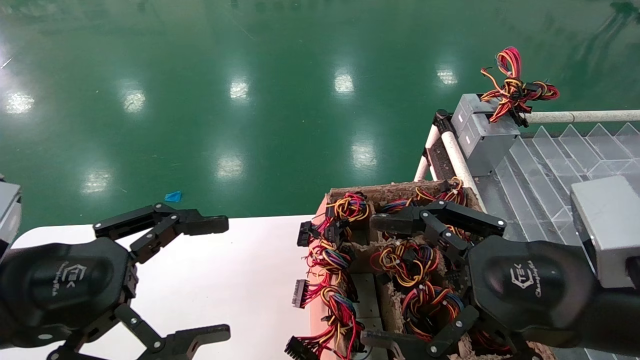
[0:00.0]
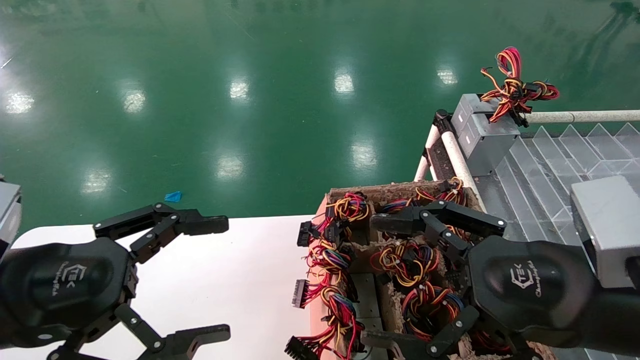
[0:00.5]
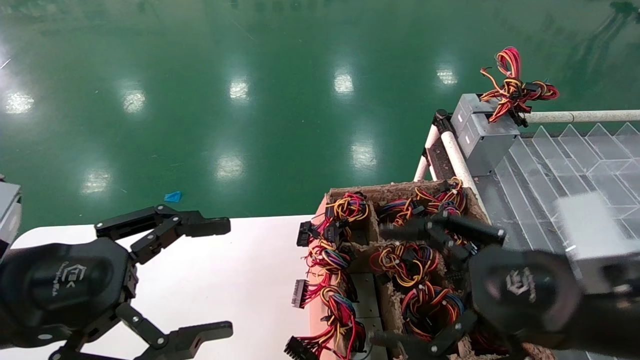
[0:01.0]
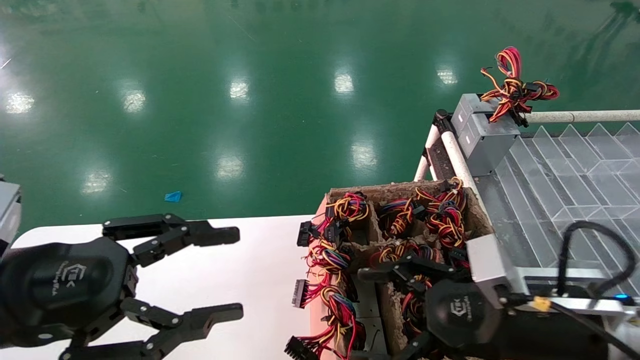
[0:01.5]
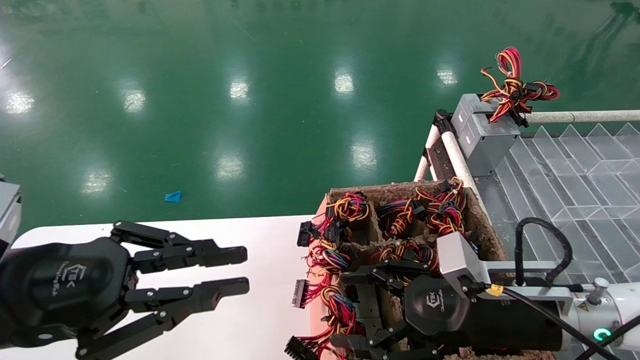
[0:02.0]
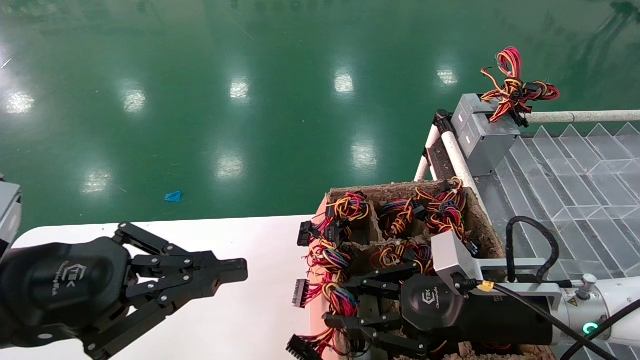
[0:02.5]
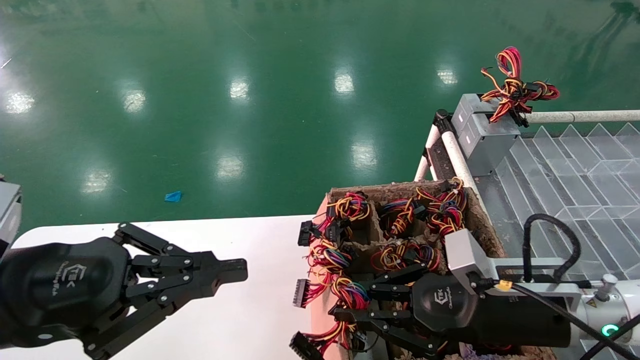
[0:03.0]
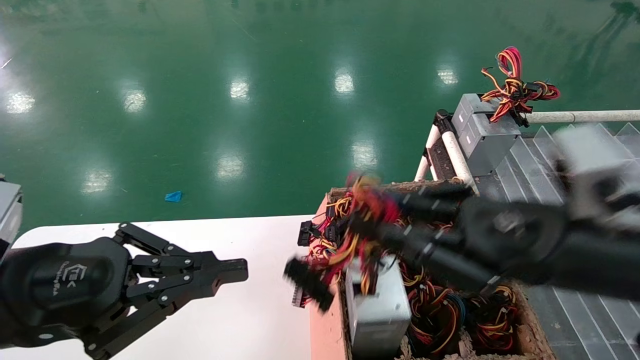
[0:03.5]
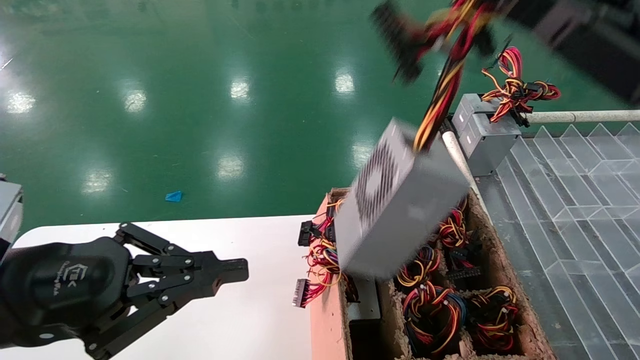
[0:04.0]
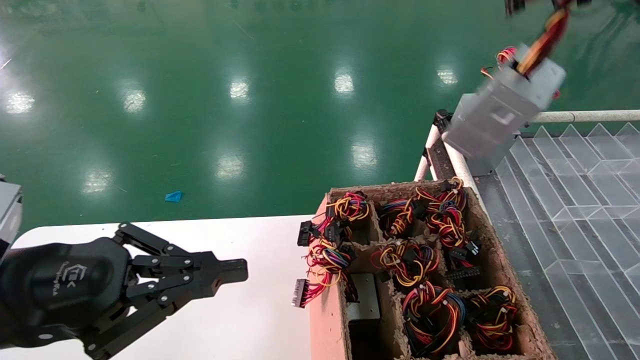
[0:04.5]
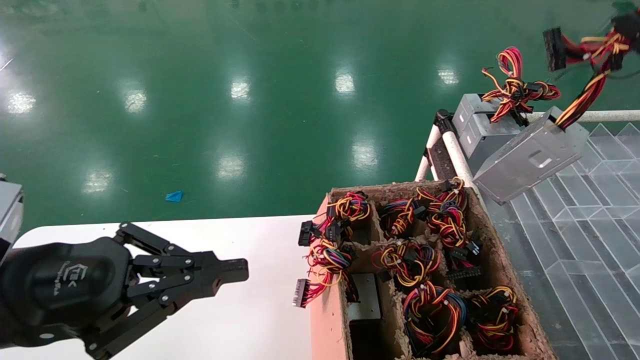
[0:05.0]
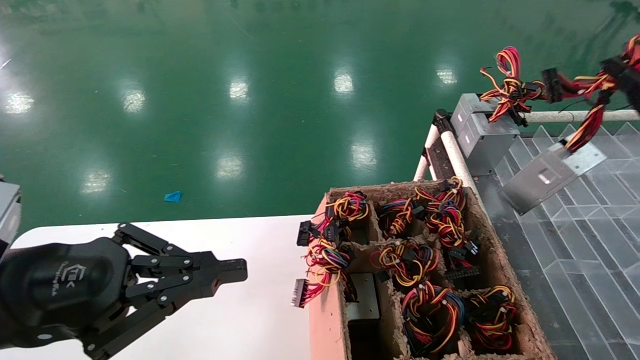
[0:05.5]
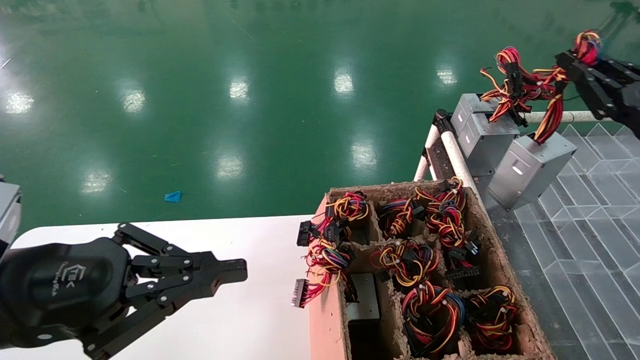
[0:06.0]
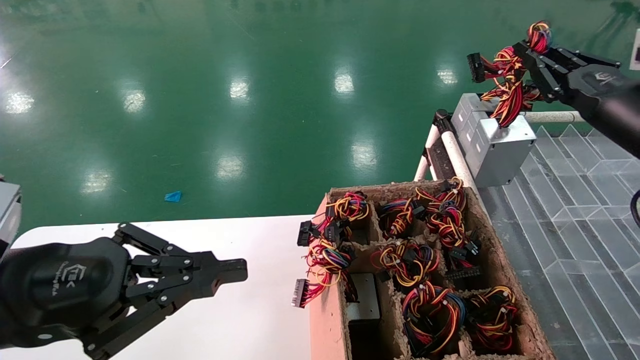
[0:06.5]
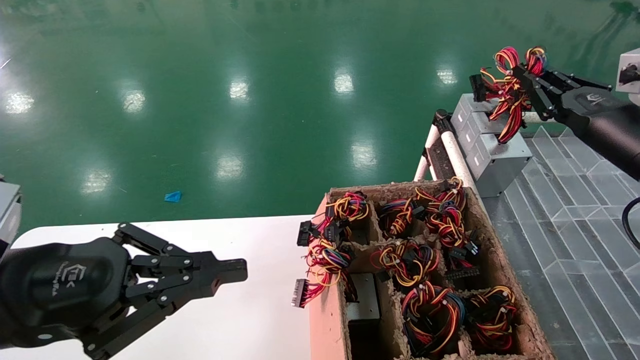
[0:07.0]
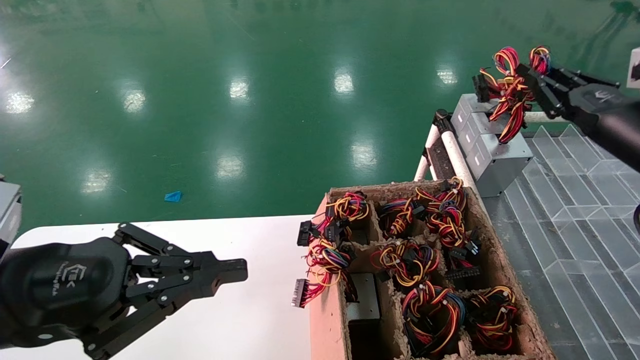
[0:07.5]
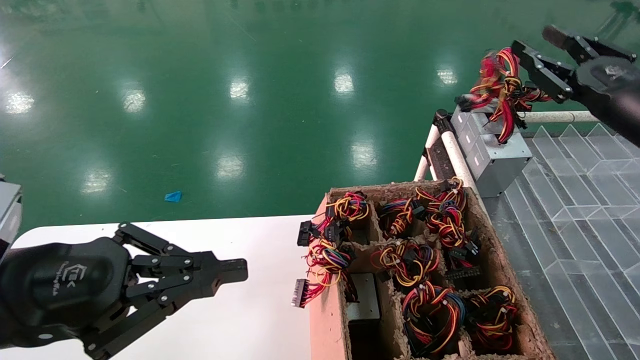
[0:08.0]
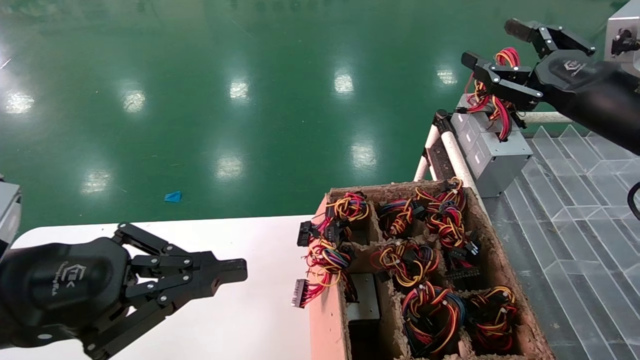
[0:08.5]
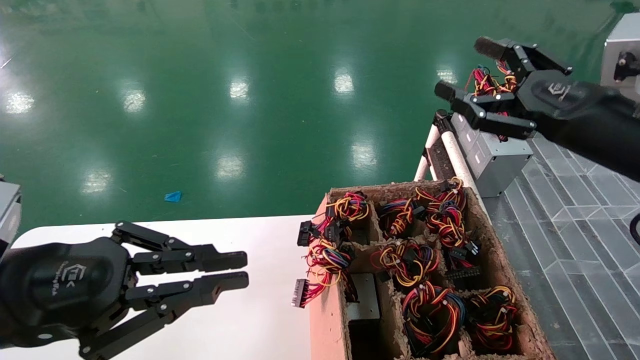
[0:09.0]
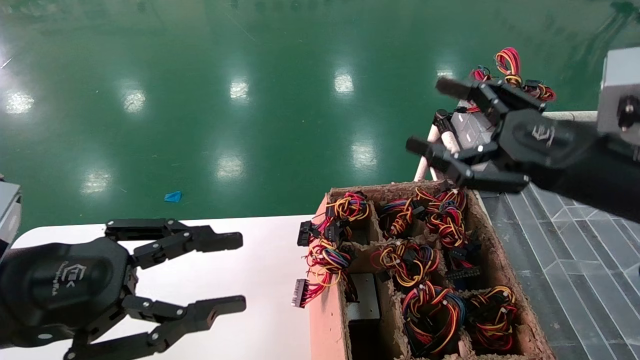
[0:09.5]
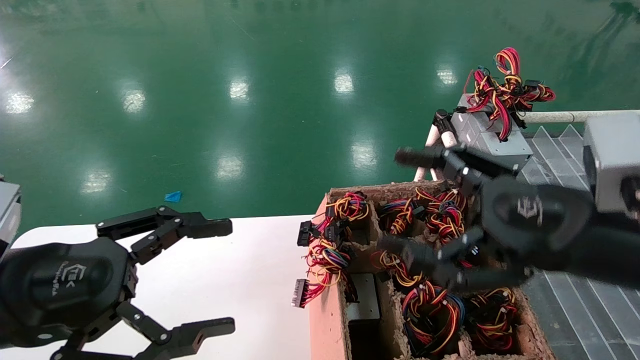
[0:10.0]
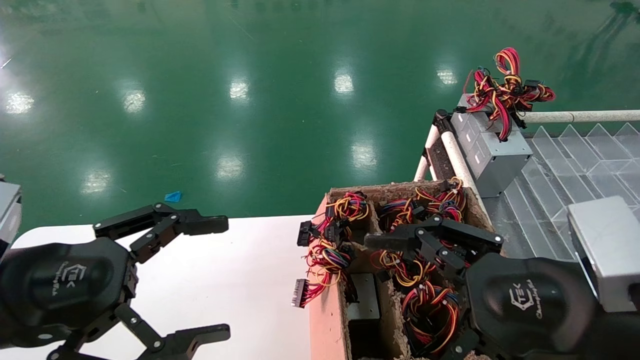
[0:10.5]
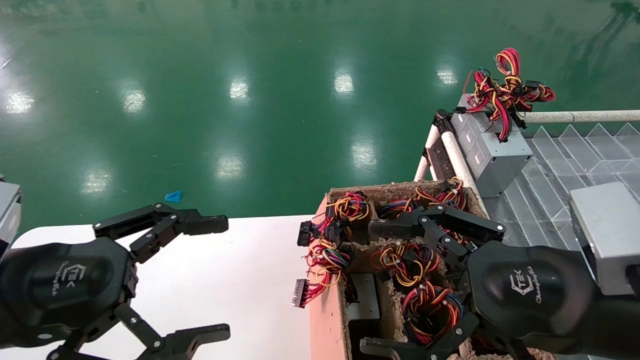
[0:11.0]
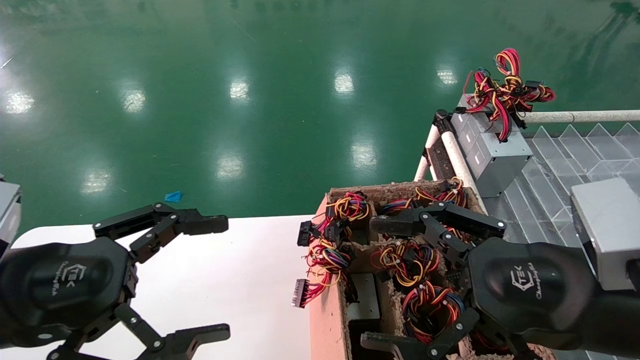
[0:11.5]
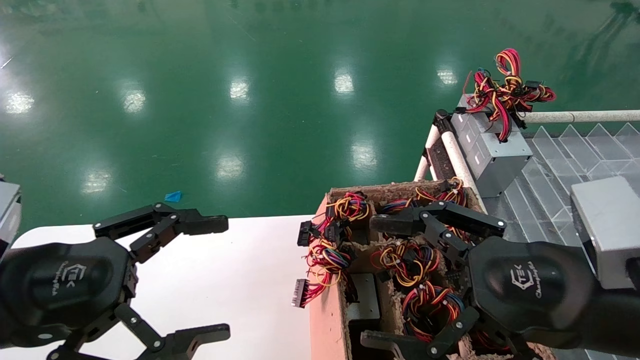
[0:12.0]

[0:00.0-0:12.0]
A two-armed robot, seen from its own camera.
Step, 0:01.5 to 0:03.0: Grab the main unit power supply from the containment box.
Step, 0:03.5 to 0:07.5: Place the main unit power supply in the designated area.
0:00.0 to 0:02.0: The left gripper closes. The right gripper is displaced forward and downward by roughly 15 cm.
0:02.0 to 0:04.0: The right gripper shifts roughly 20 cm upward, and closes up.
0:04.0 to 0:06.0: The right gripper moves to the right, forward and downward, some 20 cm.
0:06.0 to 0:08.0: The right gripper changes place by some 5 cm.
0:08.0 to 0:10.0: The left gripper opens up. Meanwhile the right gripper heads to the left, backward and downward, covering approximately 20 cm, and opens up.
0:10.0 to 0:12.0: The grippers make only small movements.

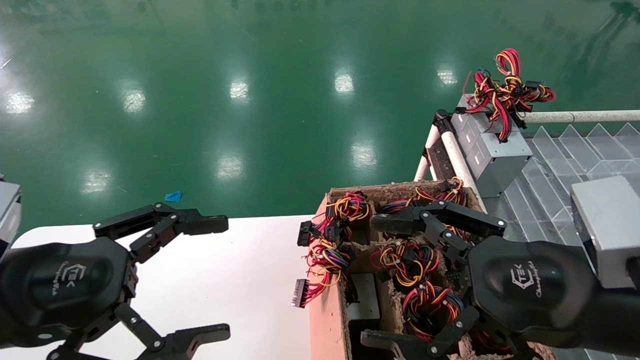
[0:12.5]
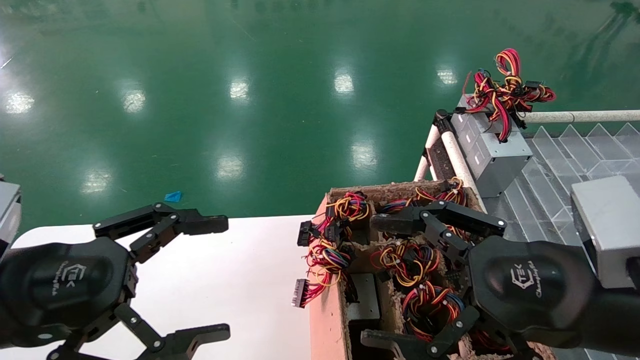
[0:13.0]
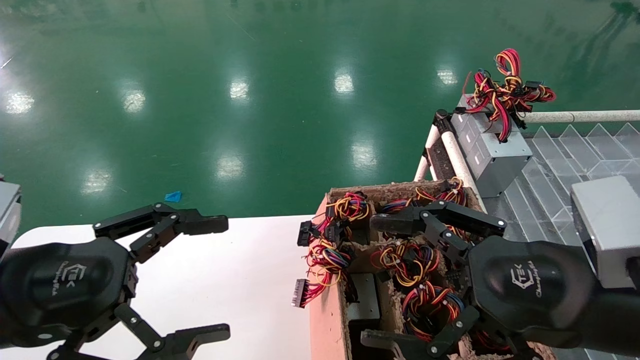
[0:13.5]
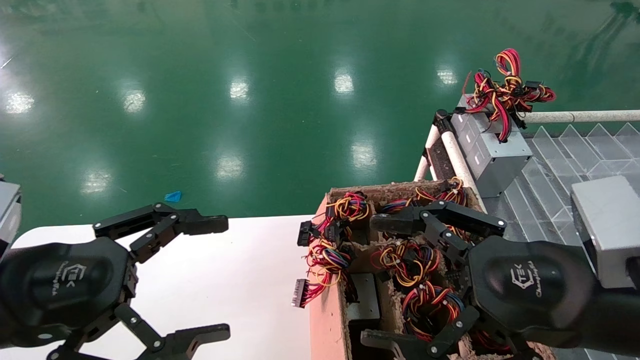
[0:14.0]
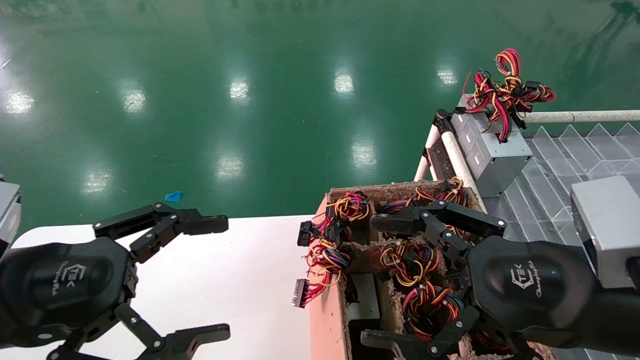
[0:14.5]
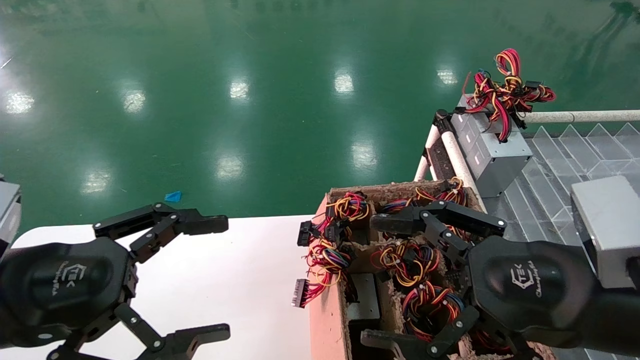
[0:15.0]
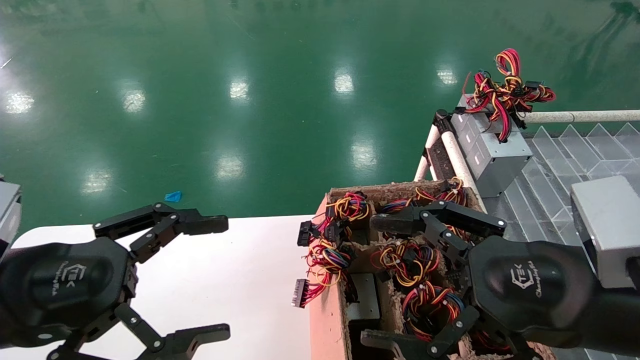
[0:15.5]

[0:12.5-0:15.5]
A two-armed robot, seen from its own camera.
0:12.5 to 0:15.5: Both grippers stay about where they are.

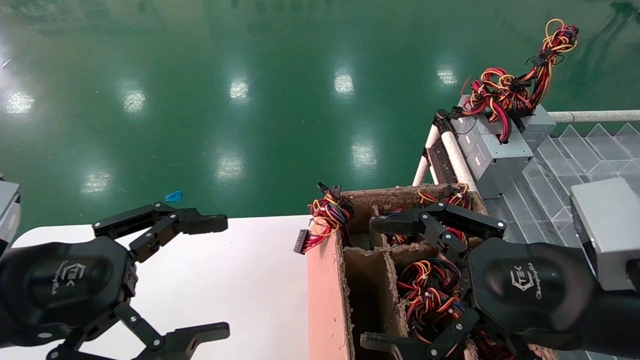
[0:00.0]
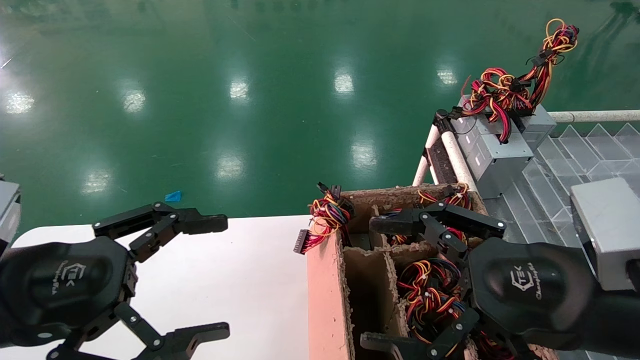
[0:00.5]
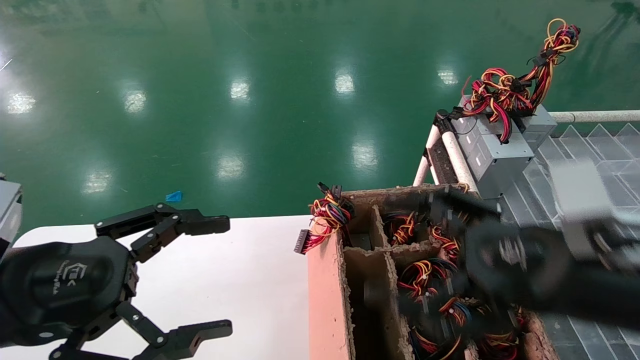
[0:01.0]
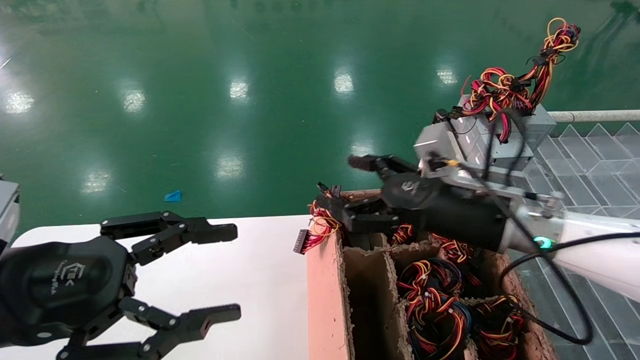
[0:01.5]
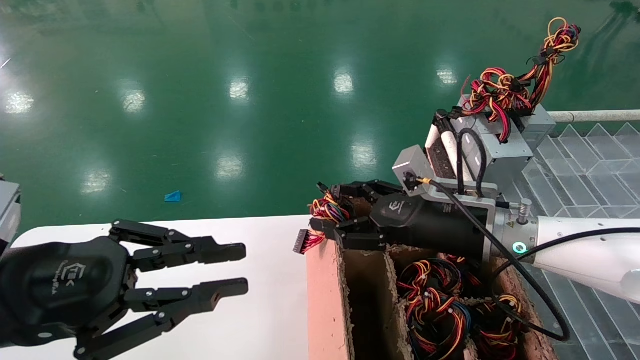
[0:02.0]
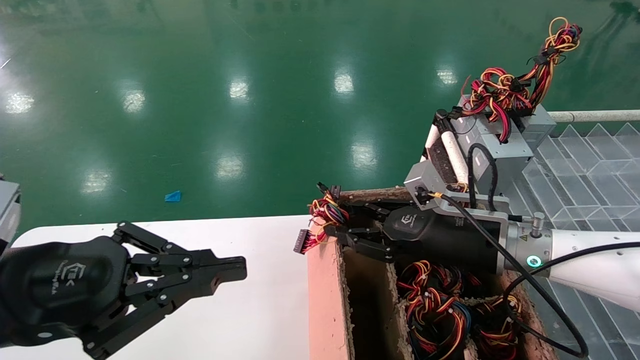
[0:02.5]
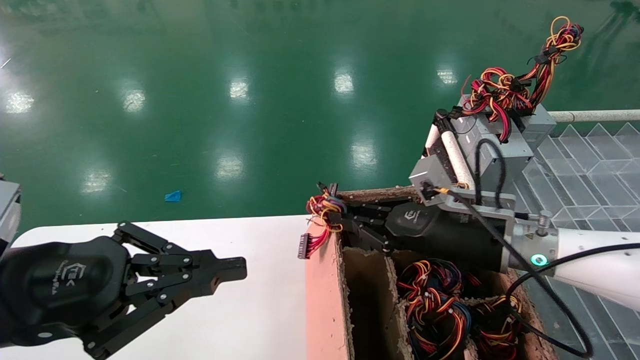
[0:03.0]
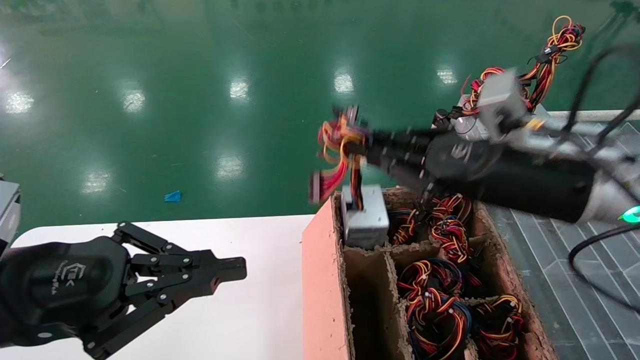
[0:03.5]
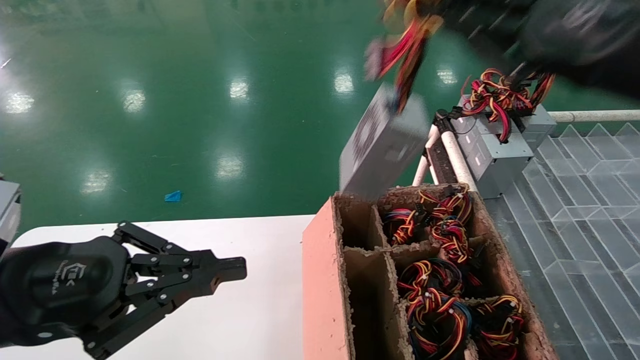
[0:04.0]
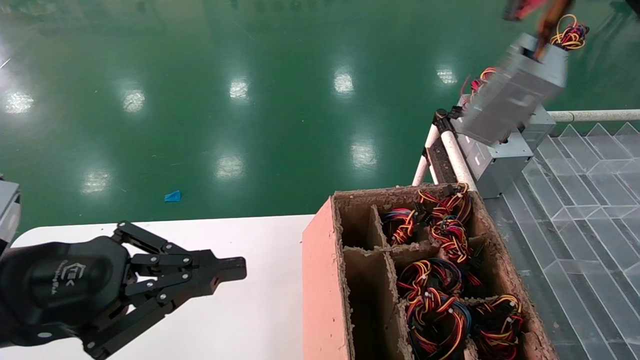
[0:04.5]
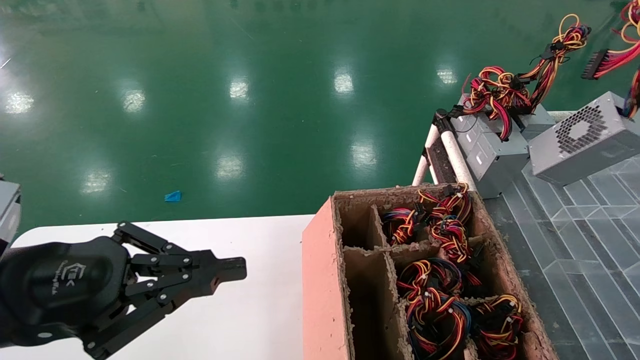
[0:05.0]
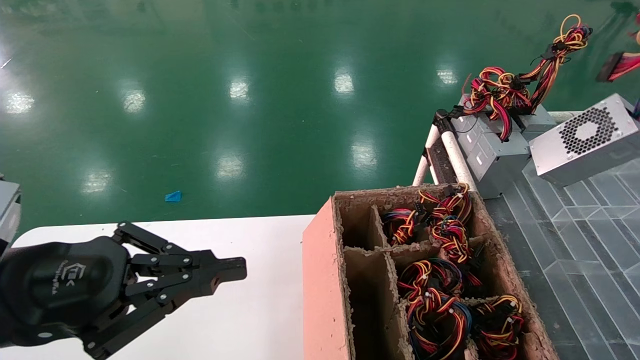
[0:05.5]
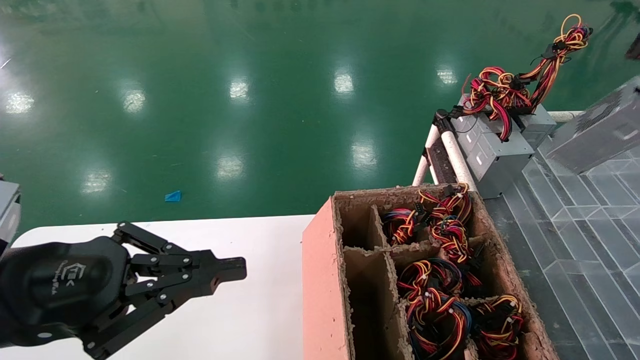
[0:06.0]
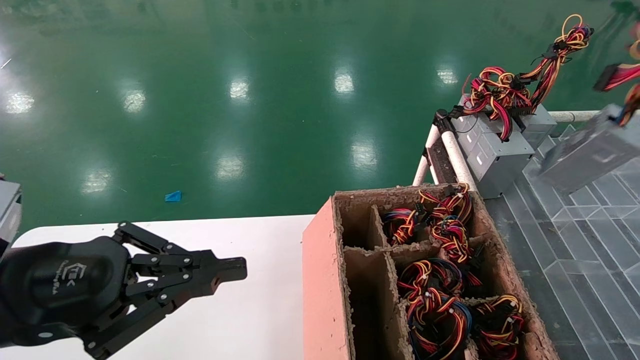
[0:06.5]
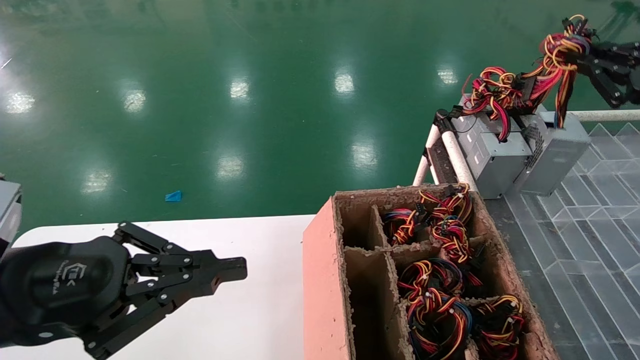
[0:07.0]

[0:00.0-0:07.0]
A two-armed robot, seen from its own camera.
Step, 0:01.5 to 0:03.0: Grab the main unit power supply from the containment box.
0:00.0 to 0:02.0: The left gripper closes up. The right gripper is displaced forward by some 15 cm.
0:02.0 to 0:03.5: The right gripper moves upward and backward, roughly 10 cm, and closes its fingers.
0:03.5 to 0:05.0: The right gripper shifts some 20 cm to the right.
0:05.0 to 0:07.0: The right gripper travels forward by some 10 cm.
